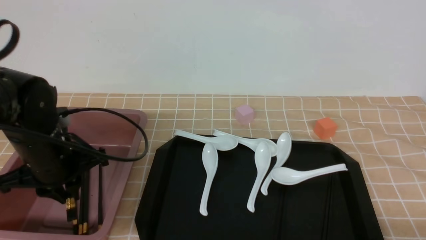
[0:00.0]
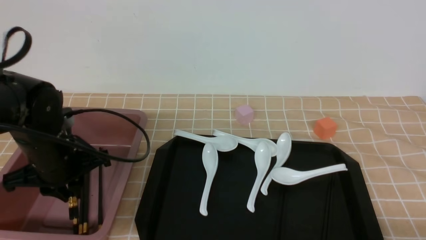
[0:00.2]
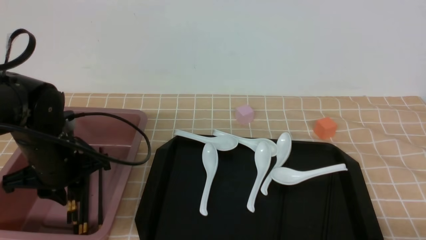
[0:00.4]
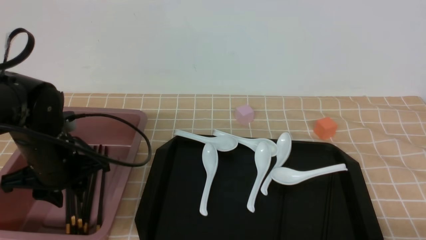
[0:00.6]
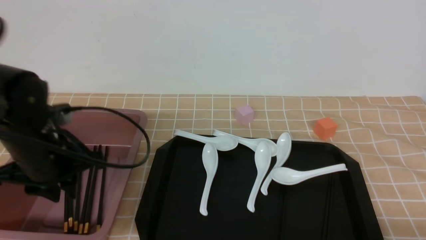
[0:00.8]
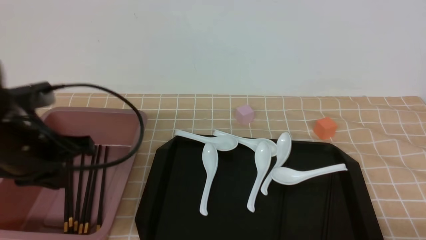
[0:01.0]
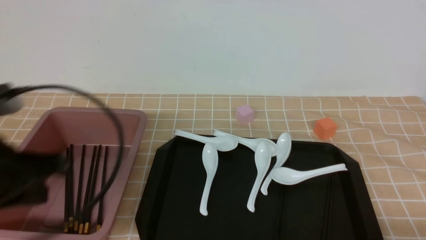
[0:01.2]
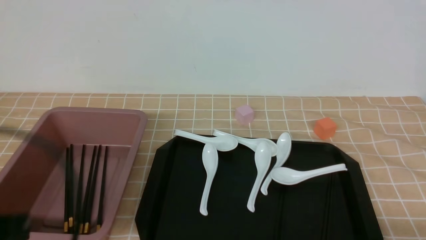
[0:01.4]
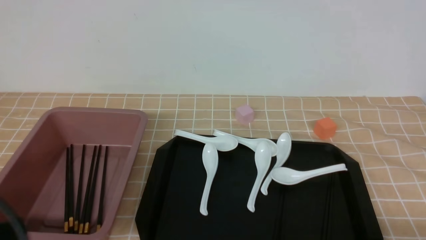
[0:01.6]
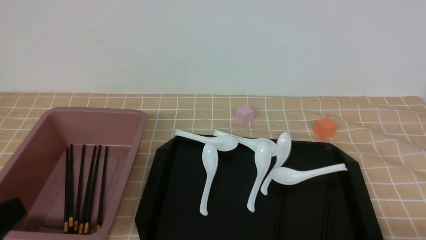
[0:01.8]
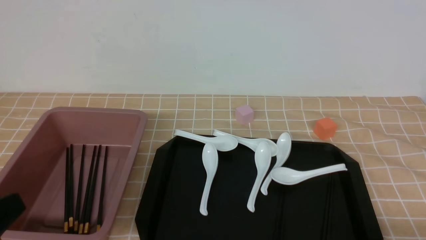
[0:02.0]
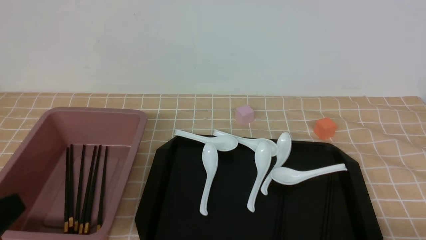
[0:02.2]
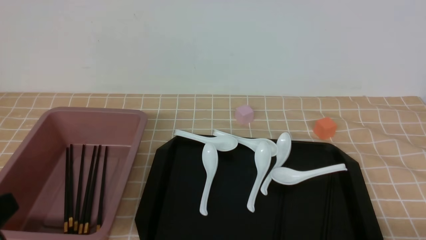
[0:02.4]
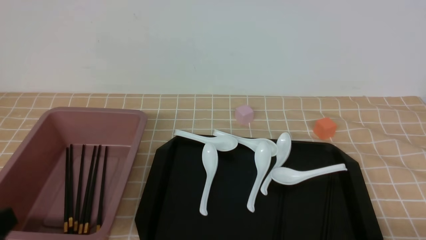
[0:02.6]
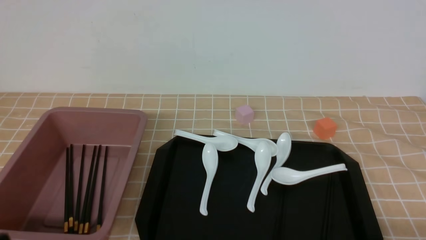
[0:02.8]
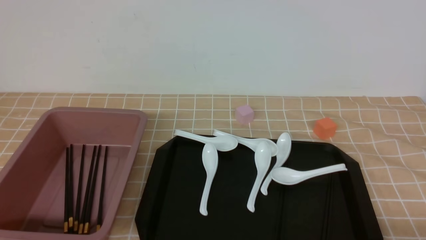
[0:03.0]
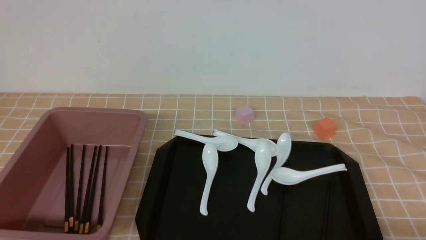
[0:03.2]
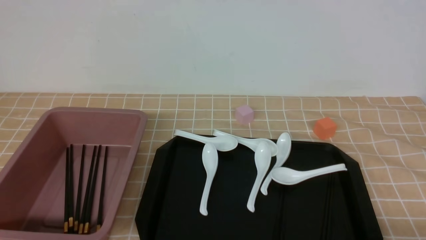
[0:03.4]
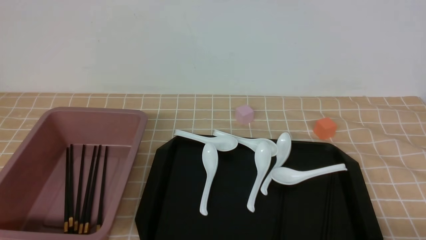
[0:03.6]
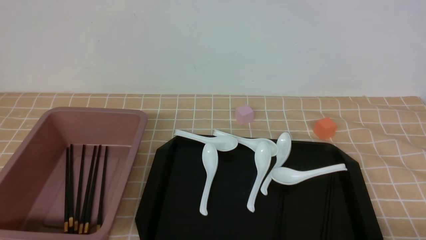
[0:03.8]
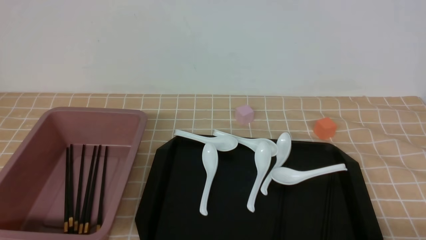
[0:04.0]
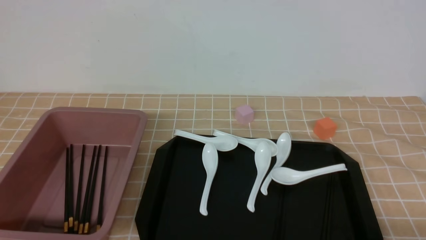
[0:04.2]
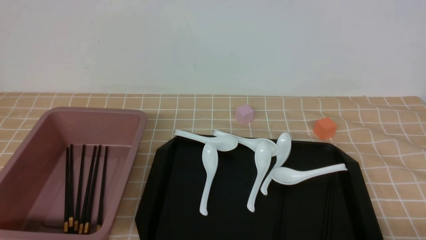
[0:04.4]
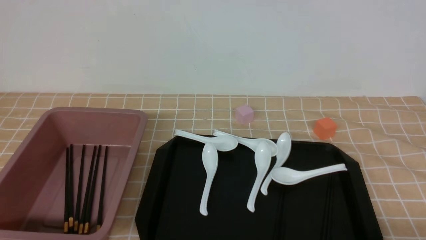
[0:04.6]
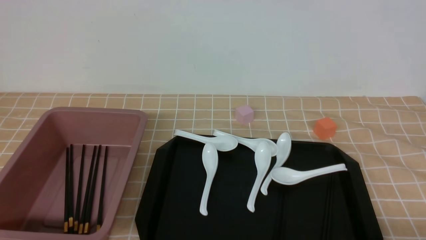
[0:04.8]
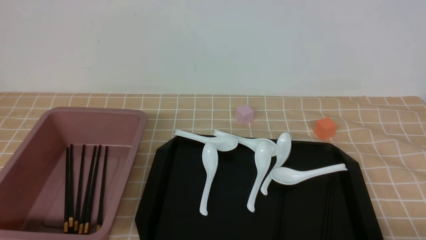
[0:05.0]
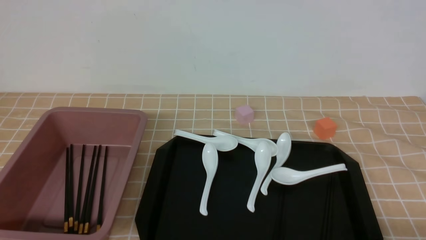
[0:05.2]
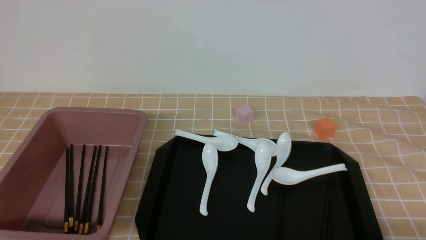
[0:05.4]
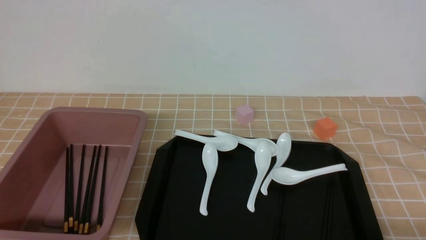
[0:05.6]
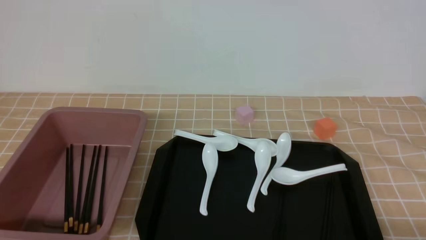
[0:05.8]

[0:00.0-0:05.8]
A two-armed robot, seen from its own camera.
0:00.0 to 0:01.4: The left gripper goes some 15 cm backward and upward, and closes its fingers.
0:01.4 to 0:02.8: The left gripper goes roughly 10 cm backward and downward.
0:04.4 to 0:05.8: Both grippers stay put.
